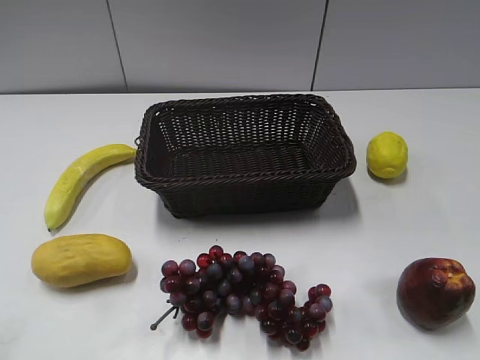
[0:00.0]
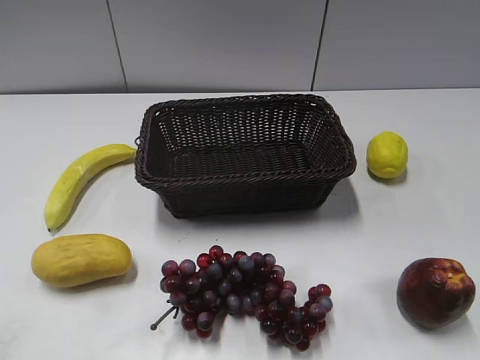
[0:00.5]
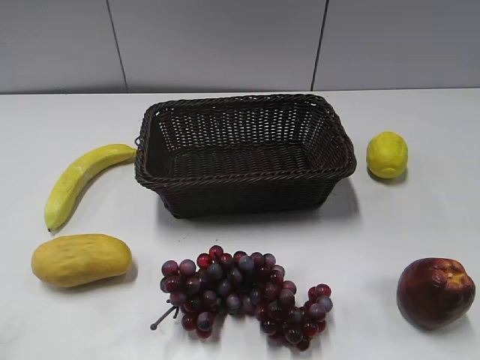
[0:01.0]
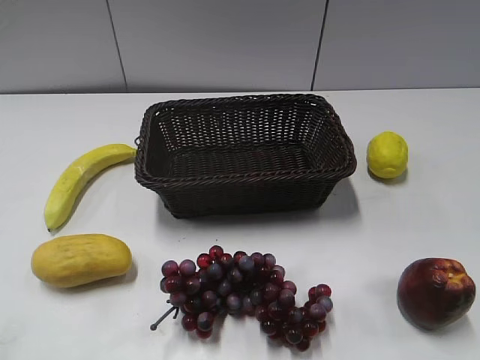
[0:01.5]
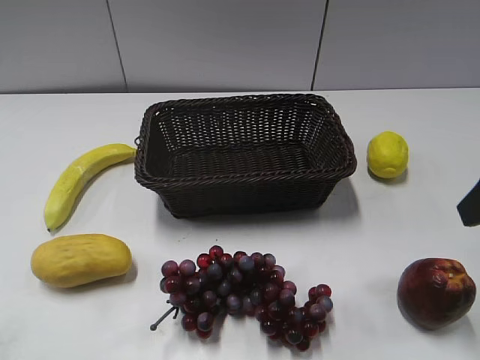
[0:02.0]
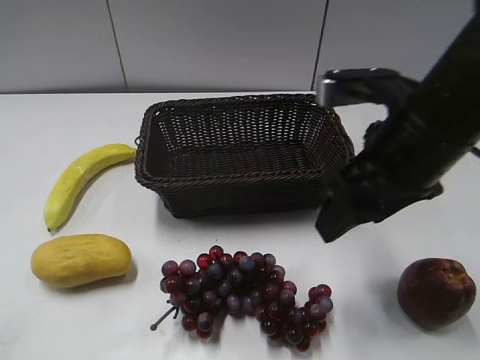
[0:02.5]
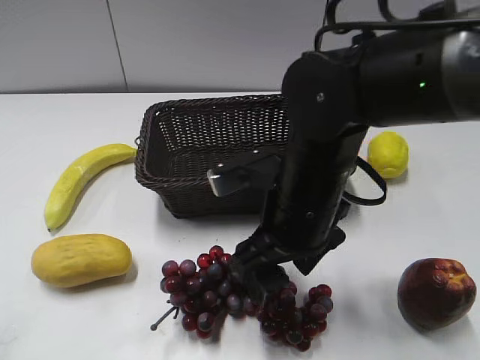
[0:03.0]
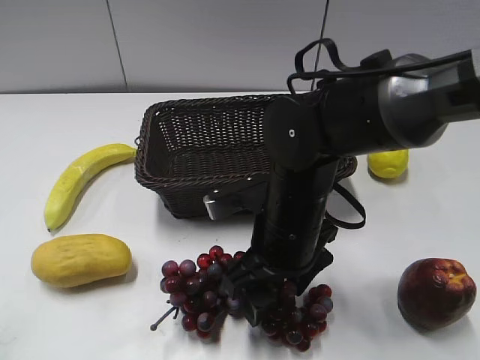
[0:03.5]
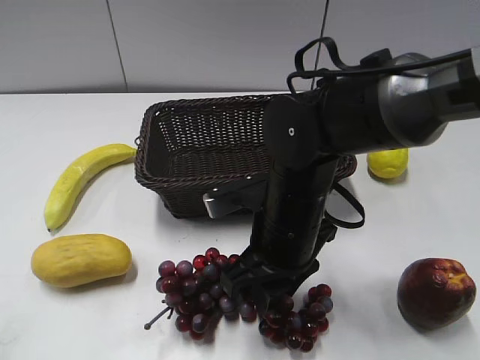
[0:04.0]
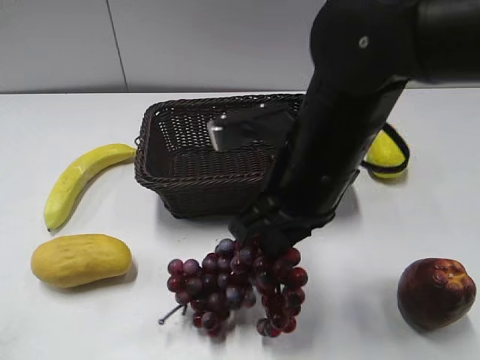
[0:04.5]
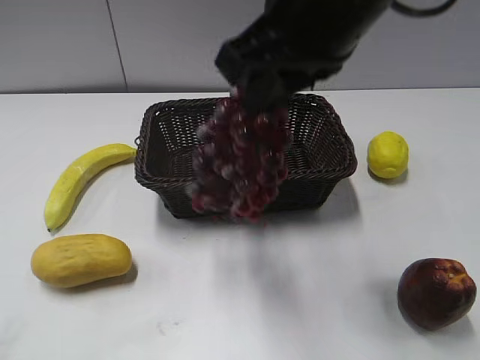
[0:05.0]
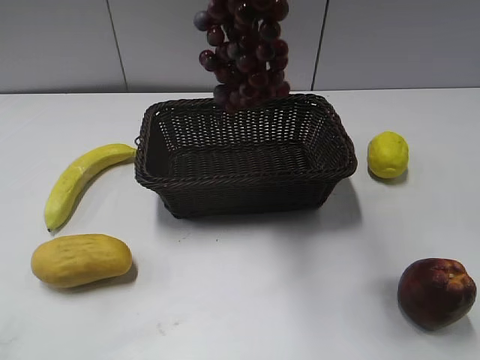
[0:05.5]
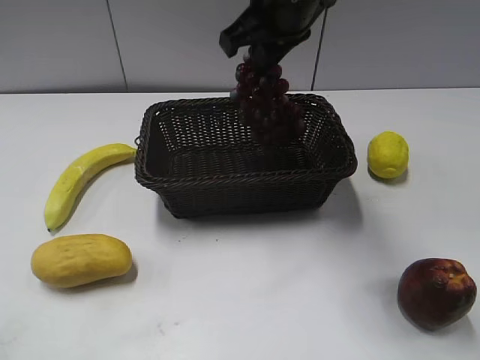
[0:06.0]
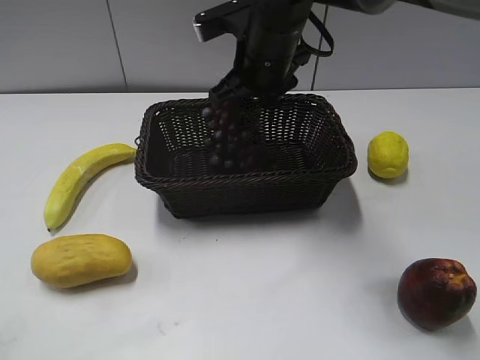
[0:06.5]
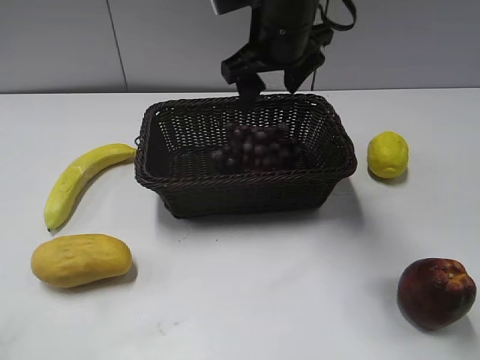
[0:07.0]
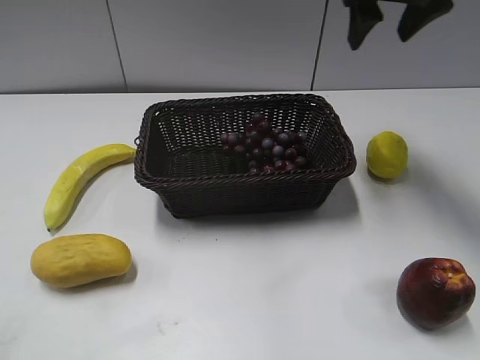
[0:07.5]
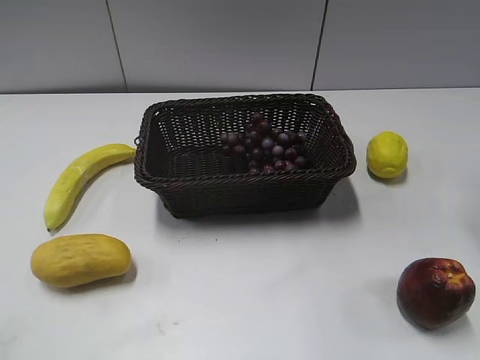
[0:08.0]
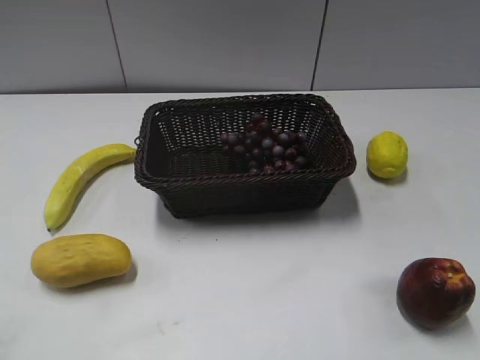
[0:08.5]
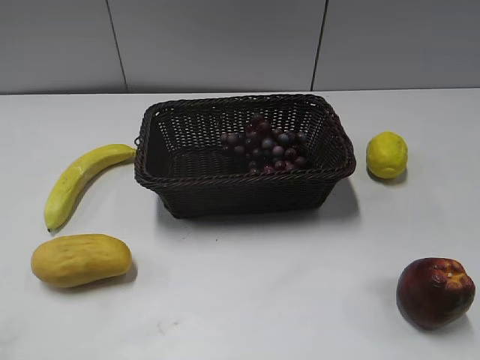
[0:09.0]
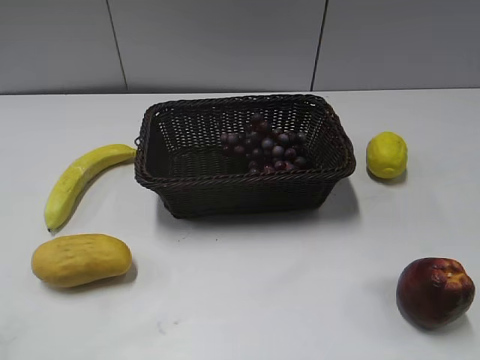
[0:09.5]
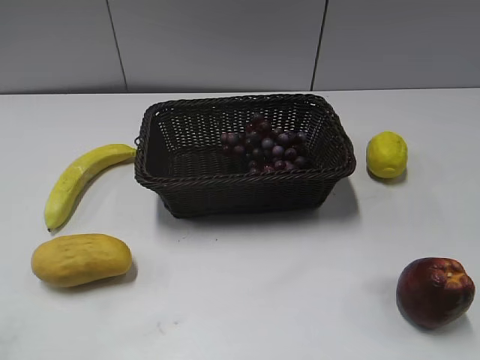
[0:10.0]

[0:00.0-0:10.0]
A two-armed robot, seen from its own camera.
Step, 0:02.0 to 0:03.5: Grasp the grape with right gripper.
Step, 0:04.5 to 0:06.5: Place the grape in the basket with right gripper.
0:02.0 to 0:04.0: The right gripper goes some 25 cm to the left and downward, and closes up.
0:04.0 to 0:06.0: The right gripper moves upward and forward, approximately 20 cm.
0:06.0 to 0:08.0: The right gripper heads to the right, covering some 25 cm, and opens its fingers.

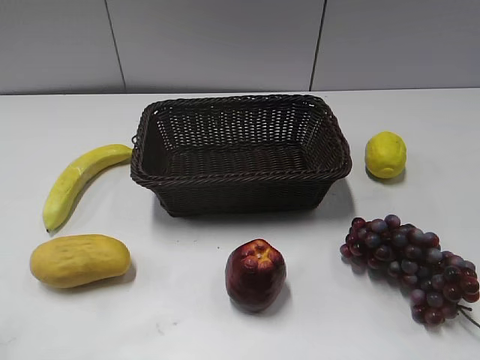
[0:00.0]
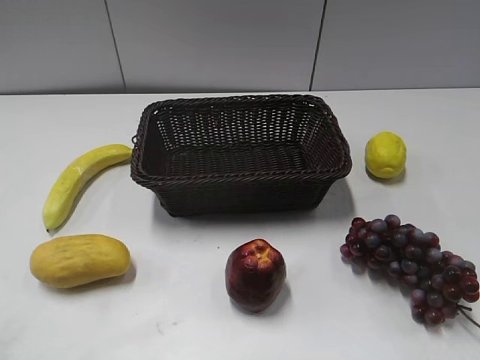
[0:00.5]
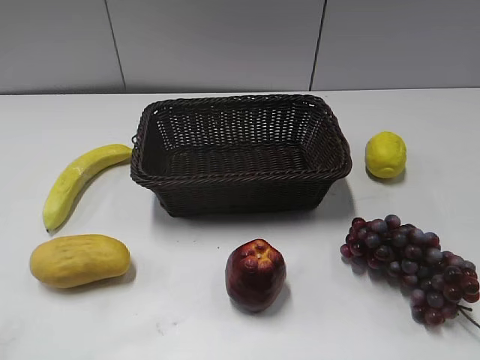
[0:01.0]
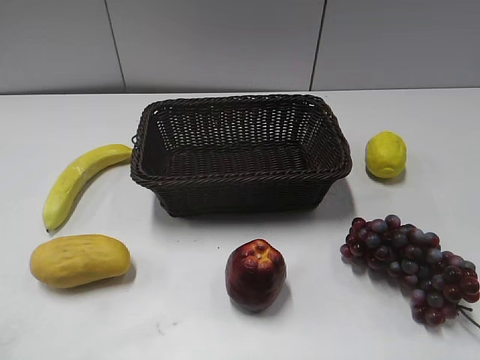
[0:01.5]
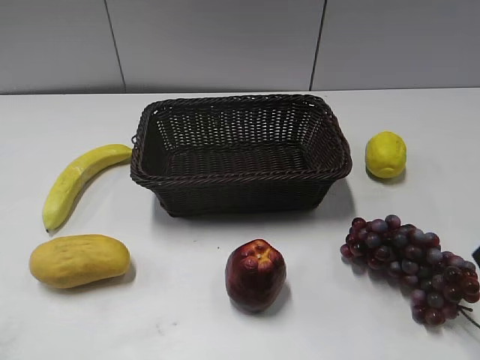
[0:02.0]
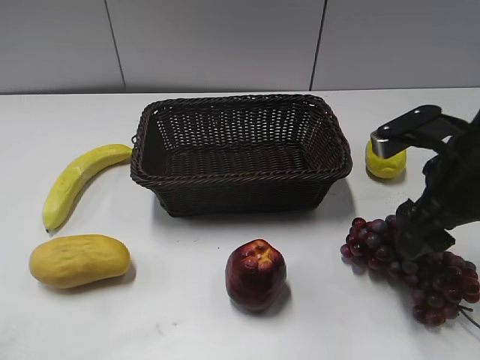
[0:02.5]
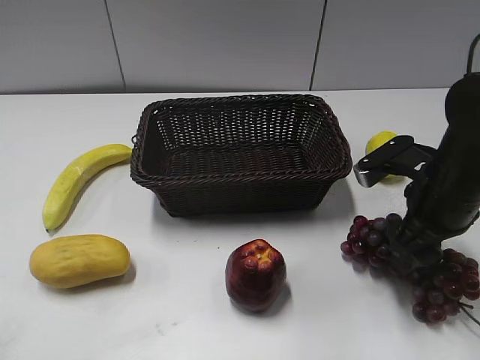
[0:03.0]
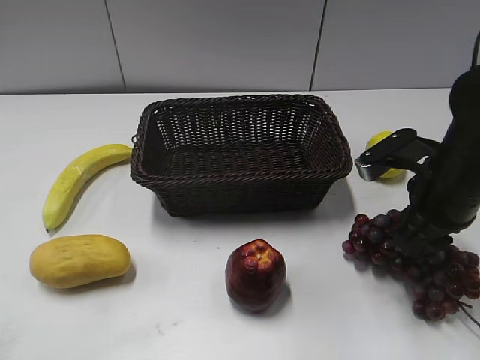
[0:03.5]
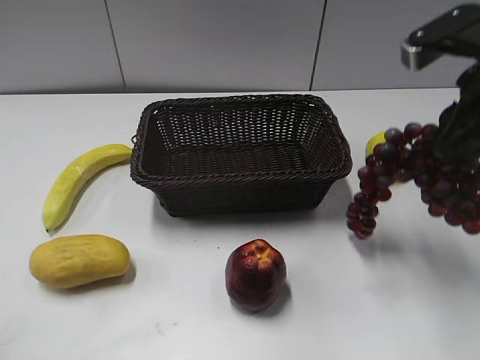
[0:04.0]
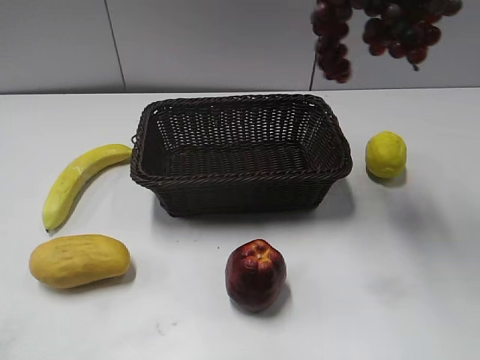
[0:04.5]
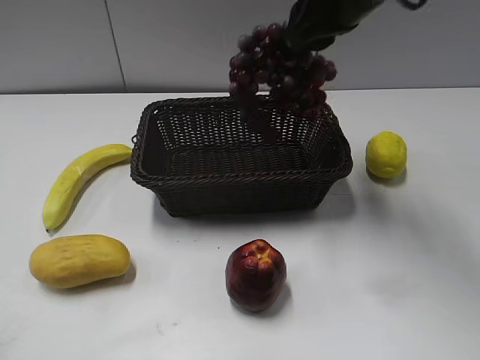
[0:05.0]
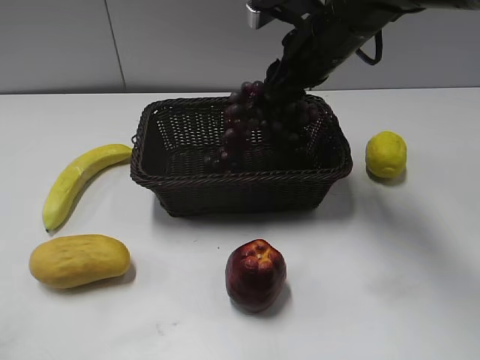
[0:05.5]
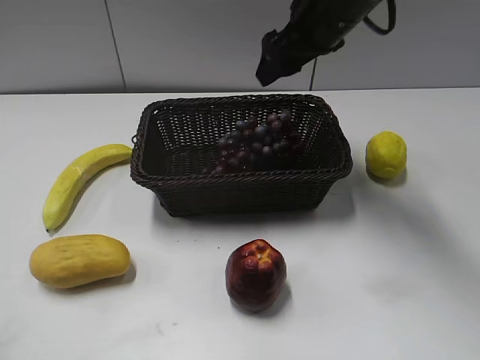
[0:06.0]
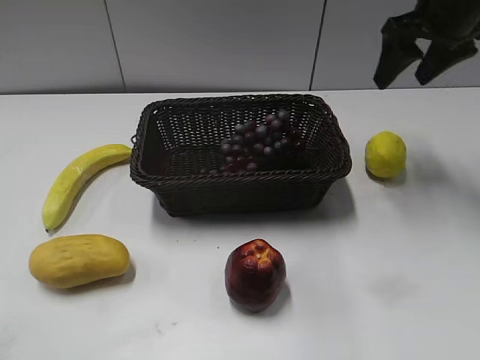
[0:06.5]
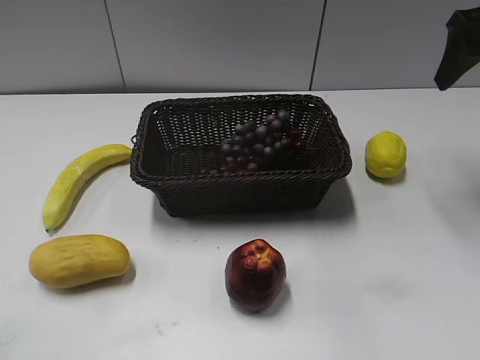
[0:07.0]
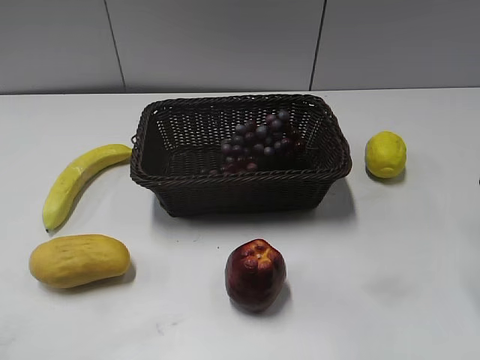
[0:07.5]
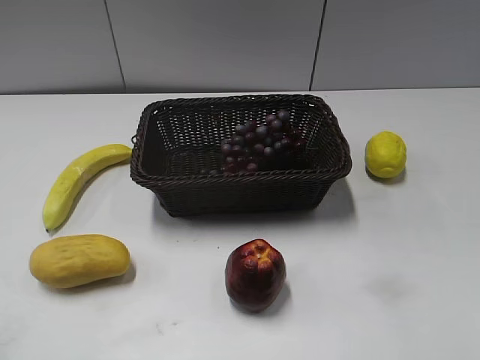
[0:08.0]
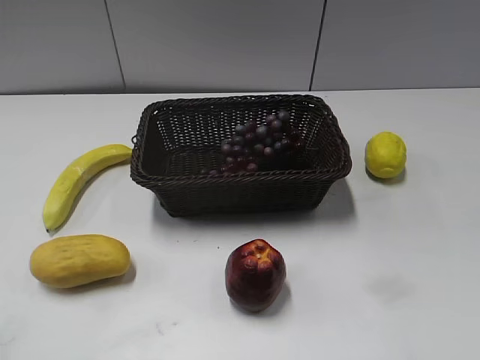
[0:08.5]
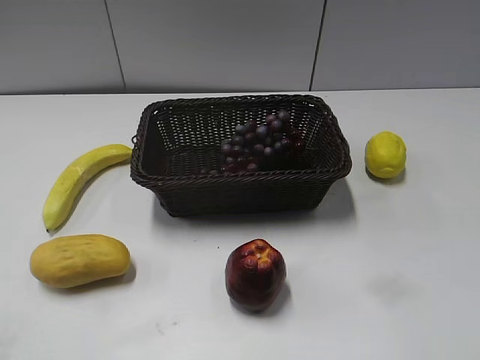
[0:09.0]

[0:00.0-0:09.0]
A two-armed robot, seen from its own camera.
Step, 0:02.0 to 0:03.0: Grasp the grape with right gripper.
Step, 0:03.5 to 0:05.5: Place the grape in the basket with right gripper.
0:02.0 to 0:04.5: The right gripper shifts some 20 cm upward, forward and to the left, and closes up.
0:04.5 to 0:07.0: The right gripper shifts roughly 15 cm to the right, downward and forward, and opens up.
0:07.0 to 0:09.0: The right gripper shifts about 35 cm backward.

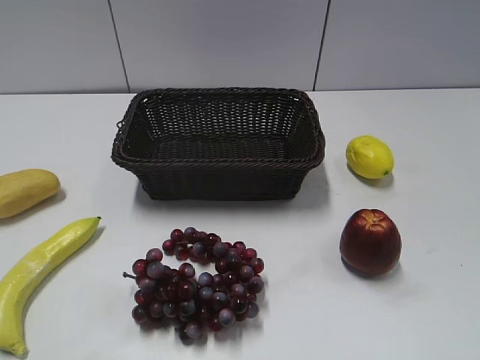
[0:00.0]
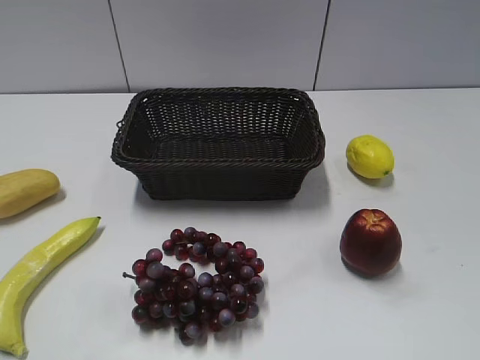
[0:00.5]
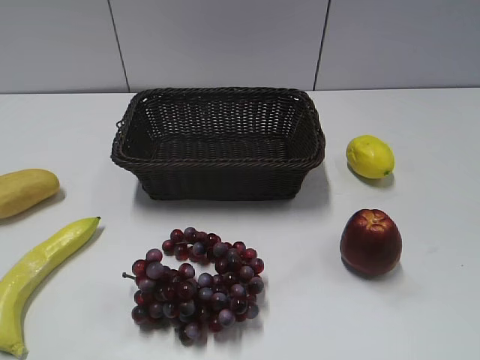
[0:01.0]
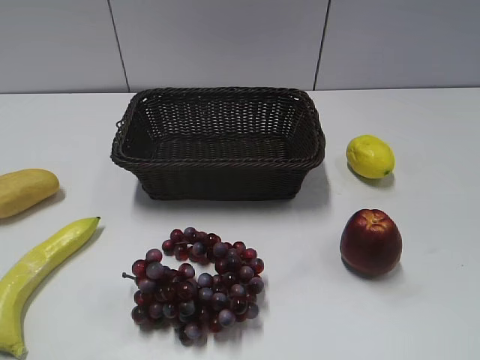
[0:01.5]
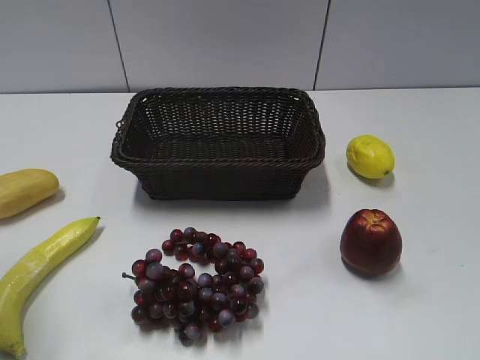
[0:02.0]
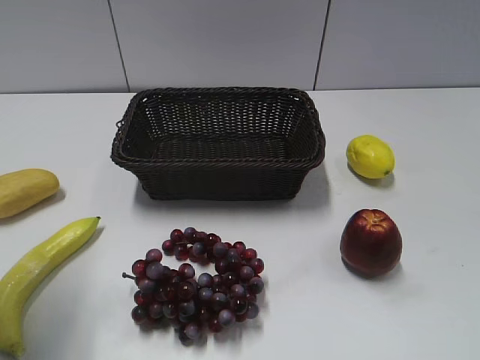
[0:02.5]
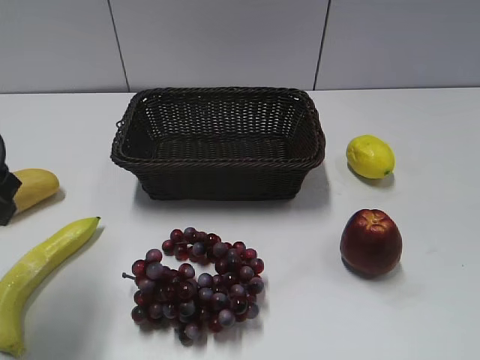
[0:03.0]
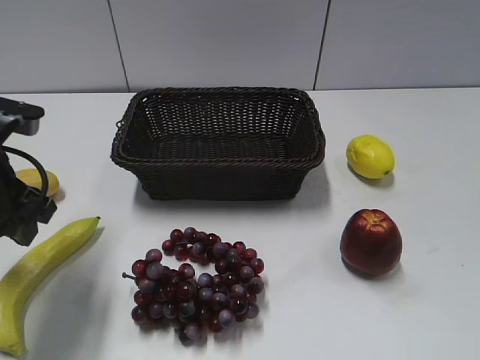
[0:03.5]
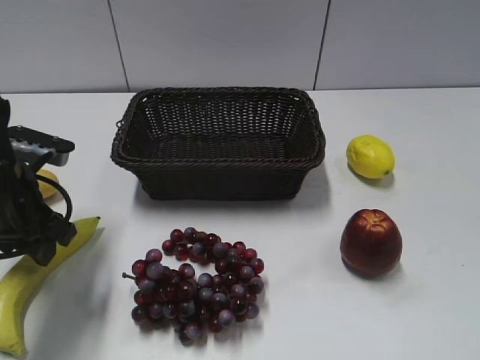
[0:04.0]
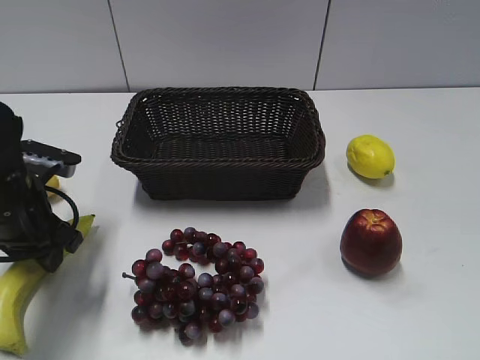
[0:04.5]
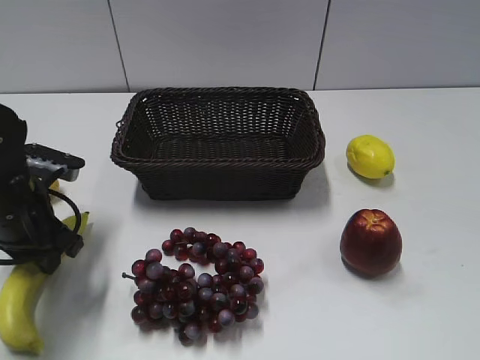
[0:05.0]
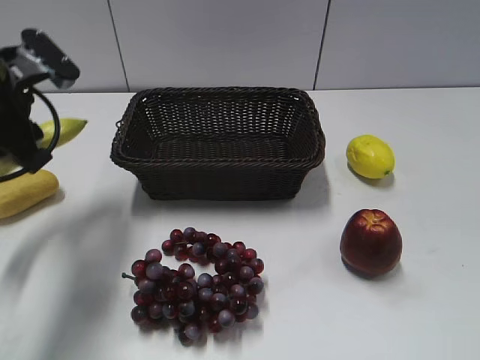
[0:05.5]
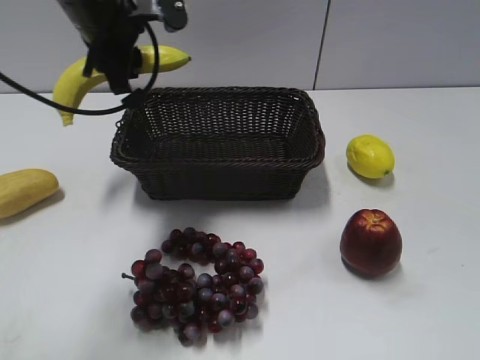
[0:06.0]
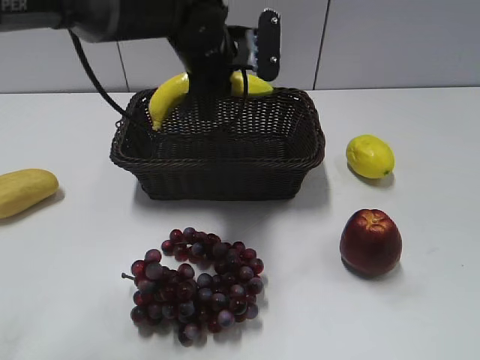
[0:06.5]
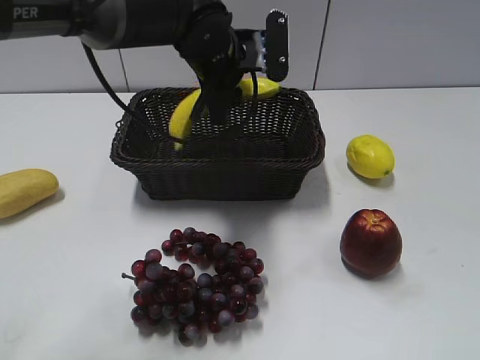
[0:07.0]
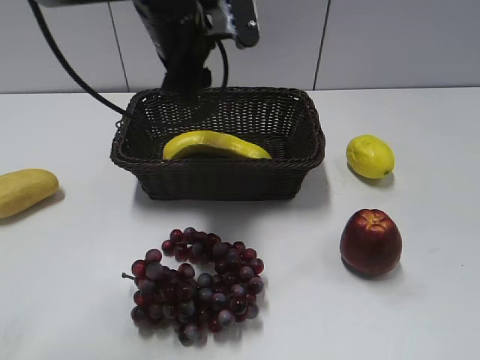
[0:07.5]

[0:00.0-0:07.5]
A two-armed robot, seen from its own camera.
Step, 0:03.0 to 0:04.5: Grasp the banana with left gripper.
Step, 0:05.0 to 0:07.0: Place the banana in the basket with left gripper.
0:02.0 to 0:04.0: The left gripper heads downward, forward and to the right, covering approximately 20 cm.
0:04.0 to 0:05.5: The left gripper shifts roughly 10 cm upward and forward, and closes up.
0:05.5 to 0:07.5: The left gripper goes approximately 15 cm to the right and forward, and opens up.
